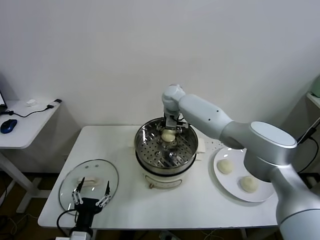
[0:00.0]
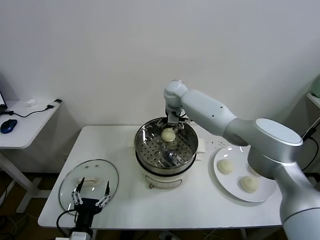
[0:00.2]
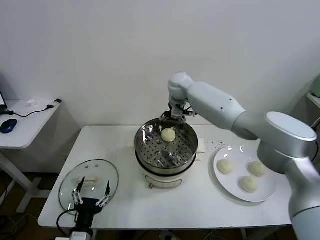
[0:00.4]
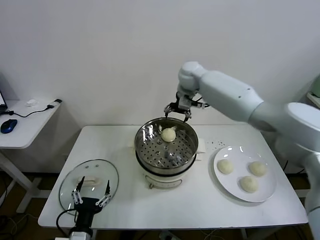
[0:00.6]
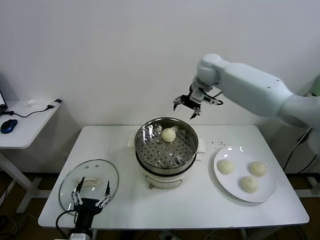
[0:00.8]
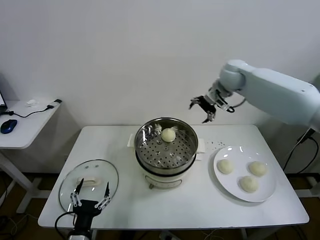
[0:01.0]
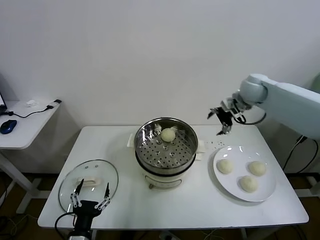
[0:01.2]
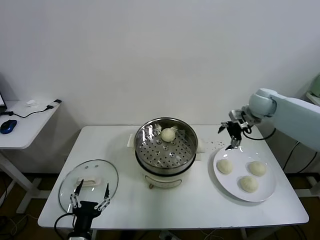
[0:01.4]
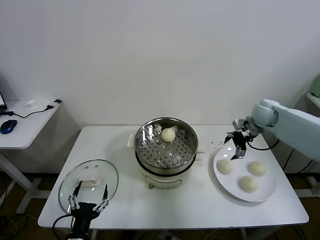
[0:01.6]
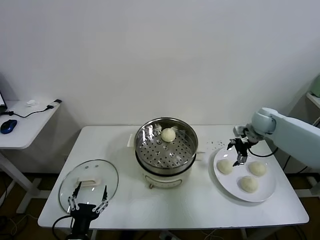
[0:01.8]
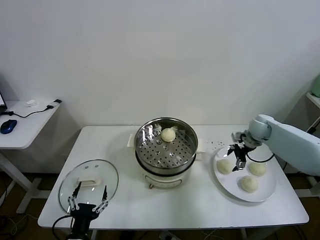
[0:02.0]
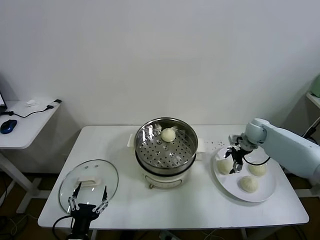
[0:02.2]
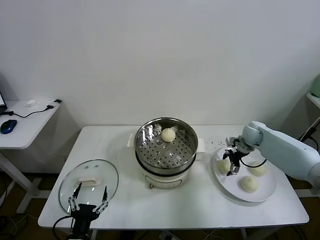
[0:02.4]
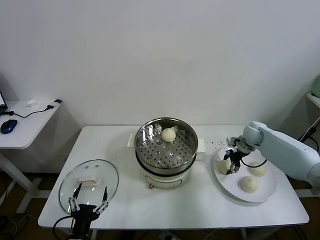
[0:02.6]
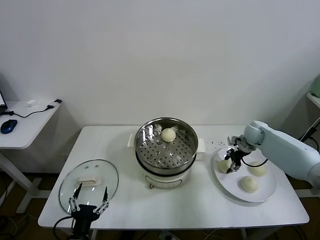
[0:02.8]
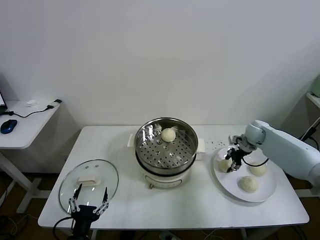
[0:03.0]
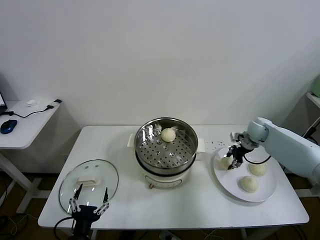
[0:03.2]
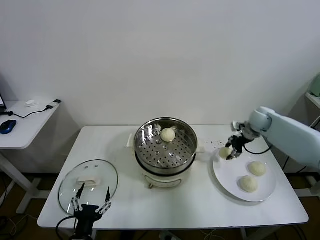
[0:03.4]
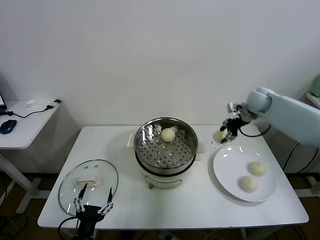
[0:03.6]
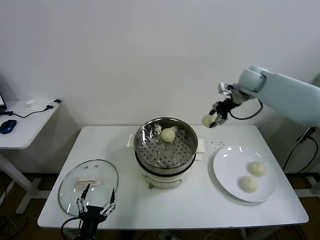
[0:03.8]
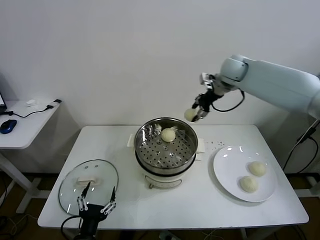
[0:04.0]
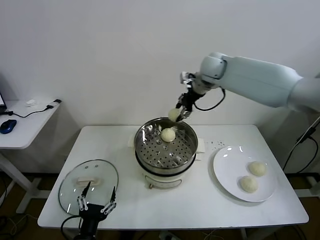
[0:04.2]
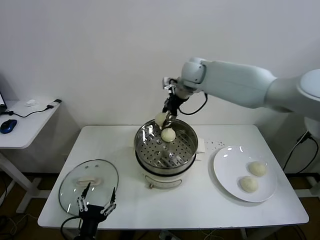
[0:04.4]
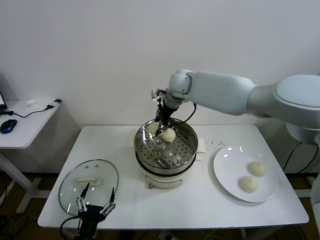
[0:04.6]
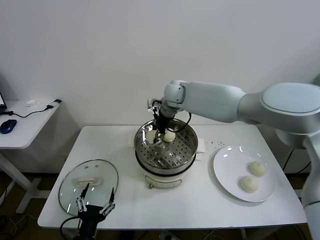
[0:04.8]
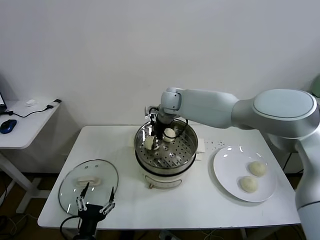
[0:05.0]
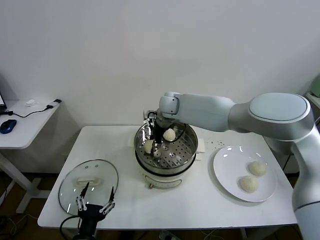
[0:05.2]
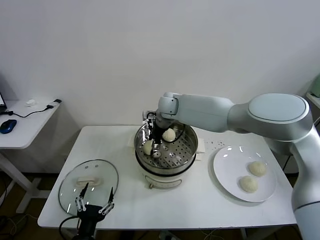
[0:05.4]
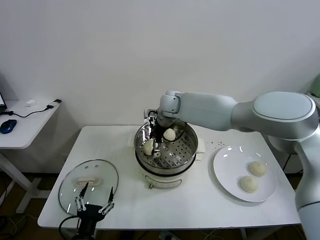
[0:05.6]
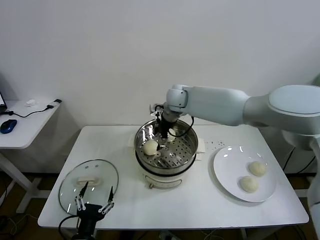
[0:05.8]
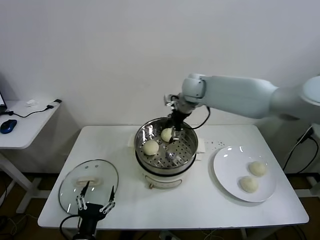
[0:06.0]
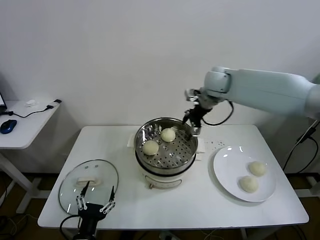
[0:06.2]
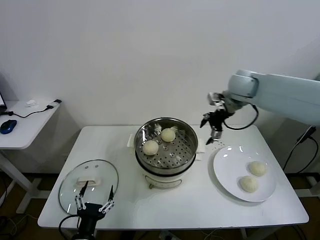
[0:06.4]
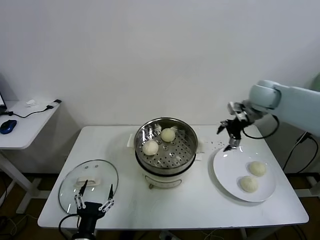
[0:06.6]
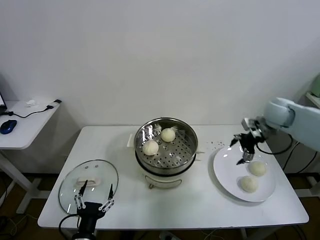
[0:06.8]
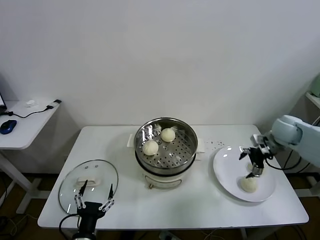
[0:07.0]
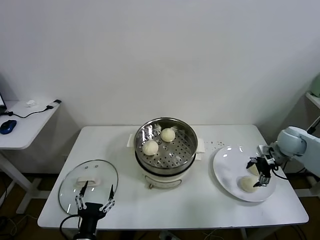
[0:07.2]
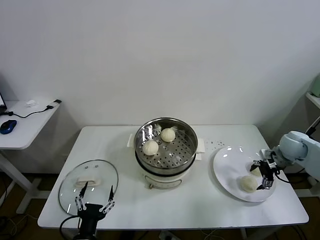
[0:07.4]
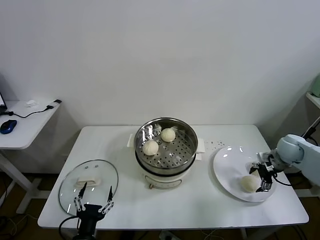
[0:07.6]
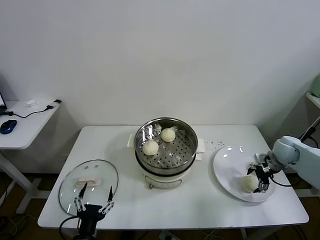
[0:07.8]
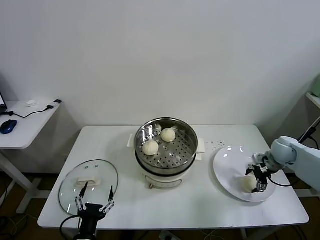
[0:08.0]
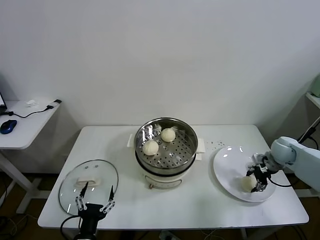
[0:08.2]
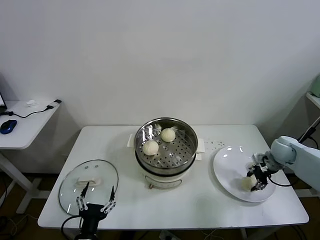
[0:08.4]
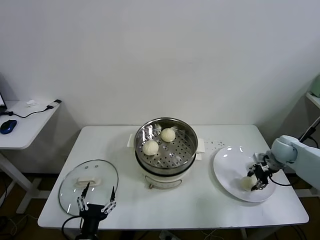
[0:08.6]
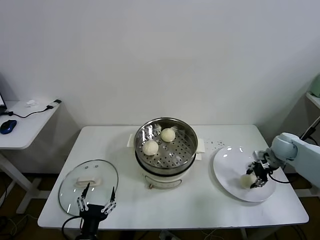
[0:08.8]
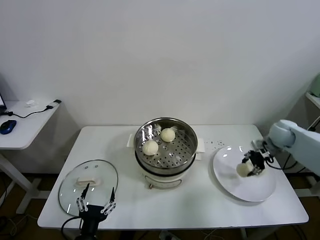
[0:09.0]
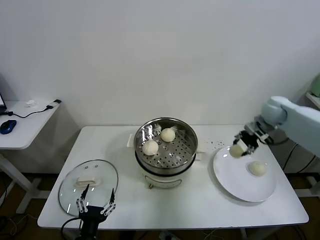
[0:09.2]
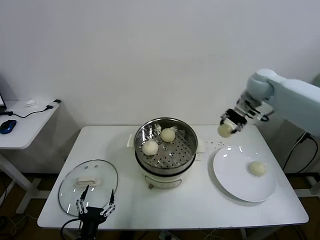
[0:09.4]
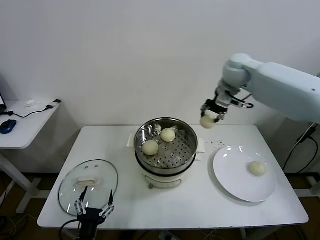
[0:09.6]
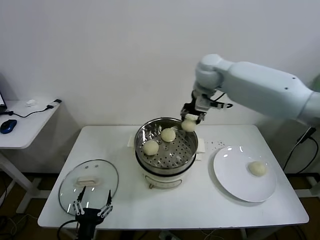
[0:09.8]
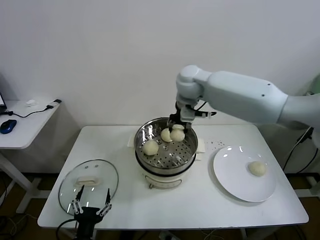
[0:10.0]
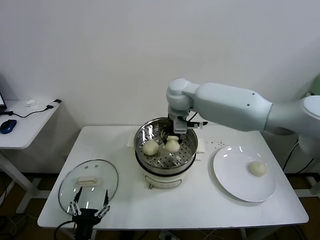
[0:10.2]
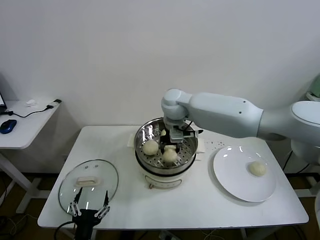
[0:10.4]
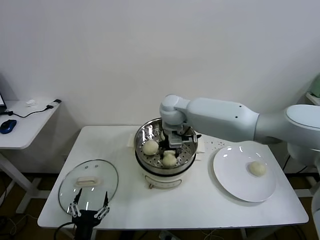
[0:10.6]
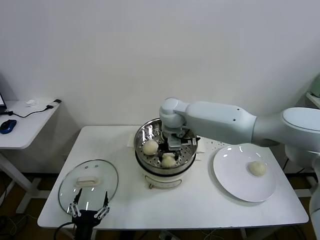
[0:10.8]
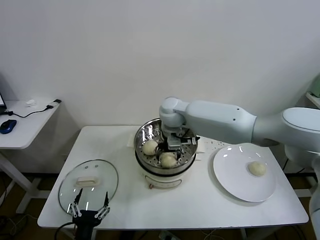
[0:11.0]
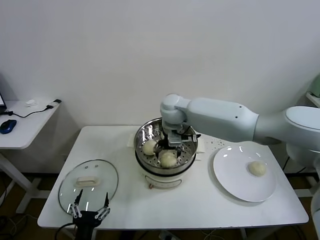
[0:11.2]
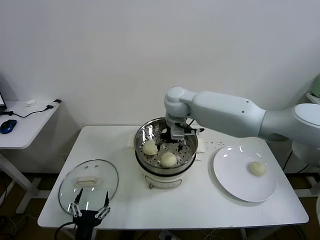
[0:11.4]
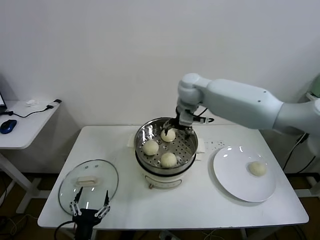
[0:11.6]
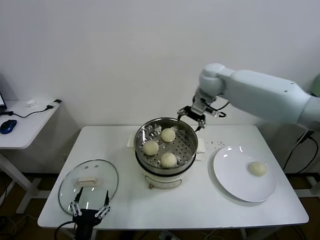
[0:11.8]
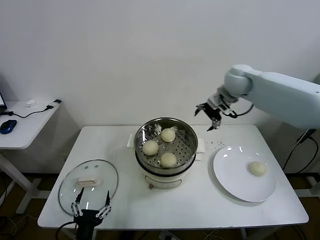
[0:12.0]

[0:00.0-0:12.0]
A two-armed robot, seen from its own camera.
Task of the whole recording: take steamed baozi put them in steamer.
Step, 0:00.4 to 0:02.6: Grasp the baozi in the plate with right gripper.
Step, 0:03.0 to 0:05.6: Place the baozi on the steamer with right gripper.
Step, 0:05.8 to 0:08.4: Grasp the baozi in the plate with right gripper.
Step, 0:08.6 to 0:11.0: Place the baozi on the steamer with right gripper.
0:00.0 to 0:01.6: The right gripper is displaced to the right by approximately 35 cm.
0:01.6 to 0:03.0: The right gripper is displaced downward by about 10 cm, and closes its fingers.
0:03.0 to 0:04.4: The right gripper moves to the left and upward, some 40 cm.
0:04.4 to 0:06.0: The right gripper opens.
0:06.0 to 0:07.6: The right gripper travels to the right and downward by approximately 40 cm.
0:07.6 to 0:09.0: The right gripper goes some 10 cm upward and forward, and closes its fingers.
0:09.0 to 0:10.4: The right gripper is displaced to the left by approximately 40 cm.
0:10.4 to 0:12.0: The right gripper is displaced to the right by approximately 25 cm, and opens up.

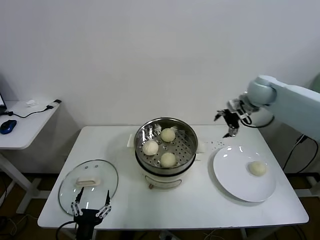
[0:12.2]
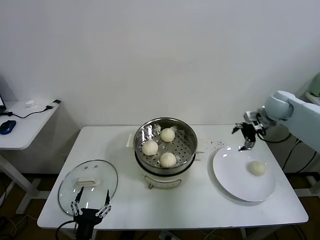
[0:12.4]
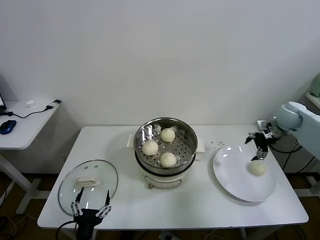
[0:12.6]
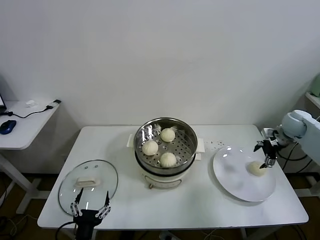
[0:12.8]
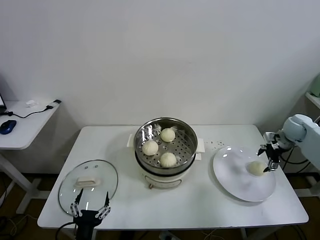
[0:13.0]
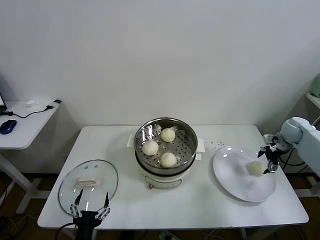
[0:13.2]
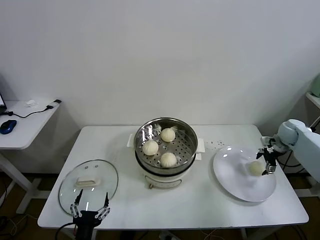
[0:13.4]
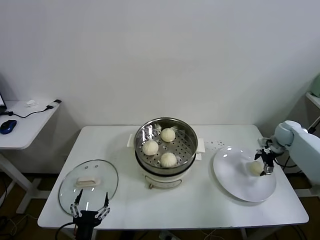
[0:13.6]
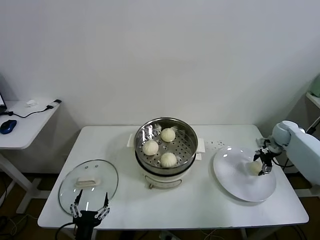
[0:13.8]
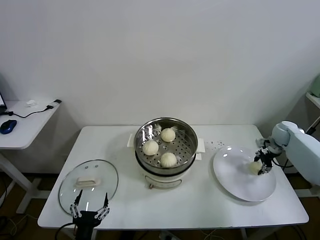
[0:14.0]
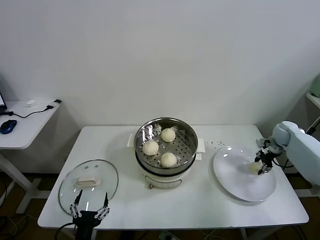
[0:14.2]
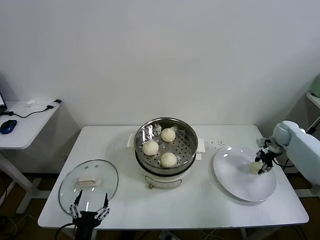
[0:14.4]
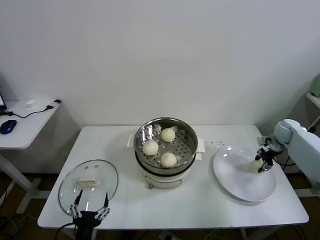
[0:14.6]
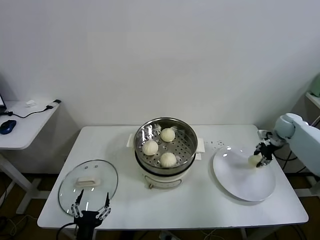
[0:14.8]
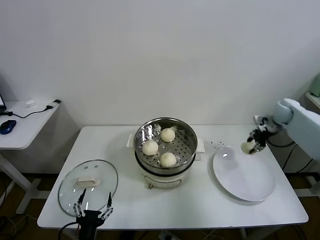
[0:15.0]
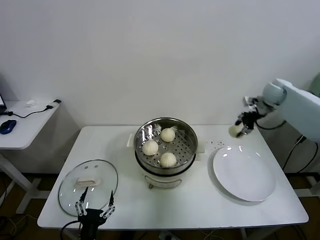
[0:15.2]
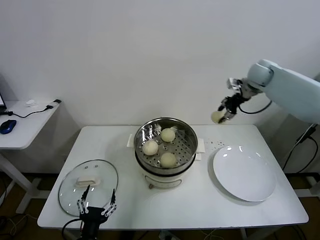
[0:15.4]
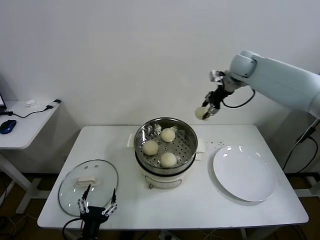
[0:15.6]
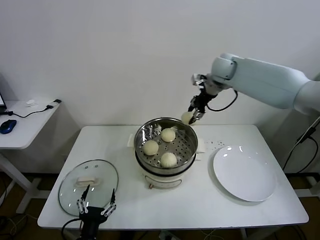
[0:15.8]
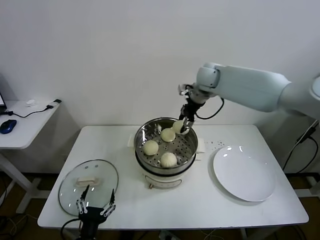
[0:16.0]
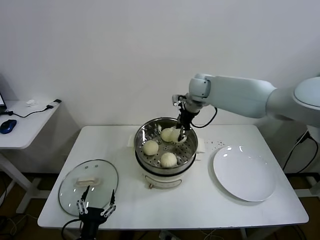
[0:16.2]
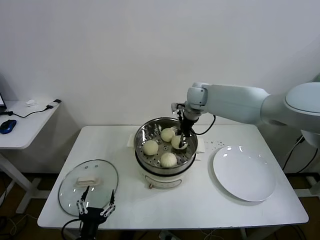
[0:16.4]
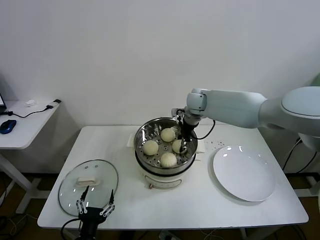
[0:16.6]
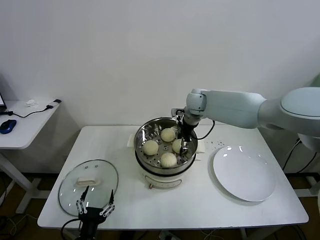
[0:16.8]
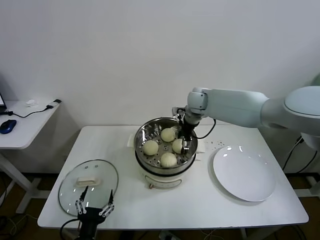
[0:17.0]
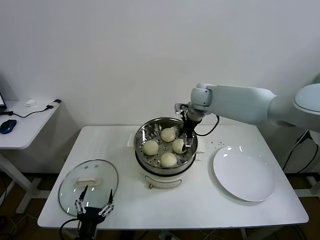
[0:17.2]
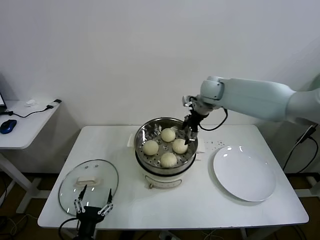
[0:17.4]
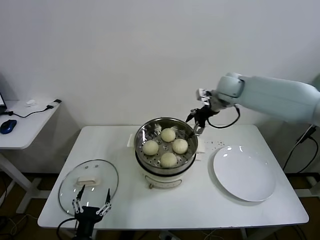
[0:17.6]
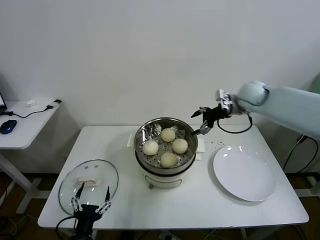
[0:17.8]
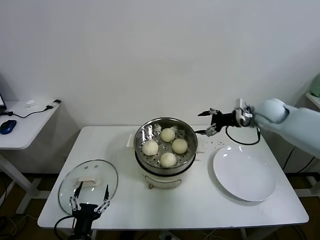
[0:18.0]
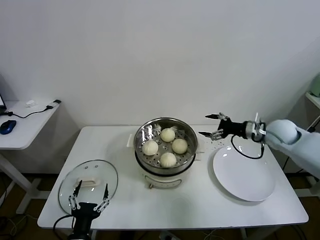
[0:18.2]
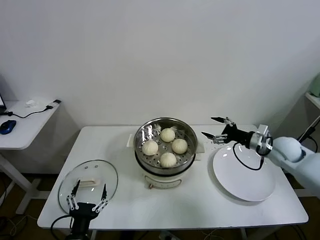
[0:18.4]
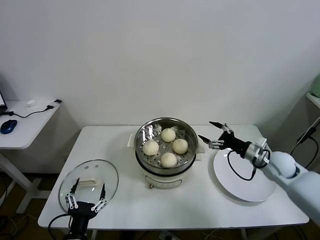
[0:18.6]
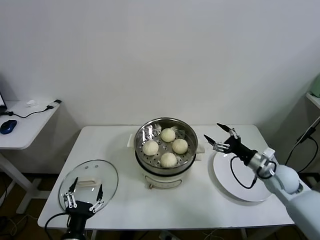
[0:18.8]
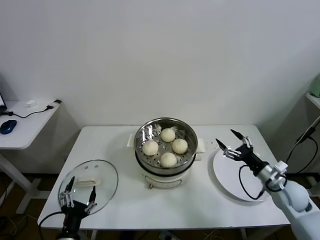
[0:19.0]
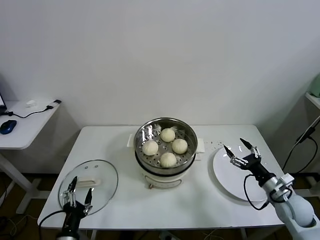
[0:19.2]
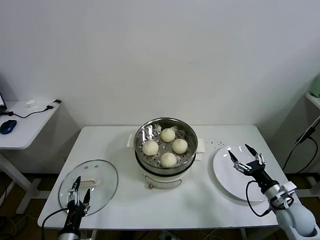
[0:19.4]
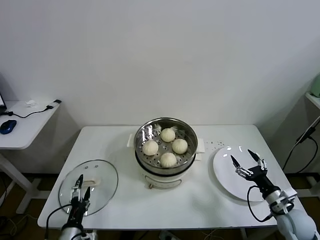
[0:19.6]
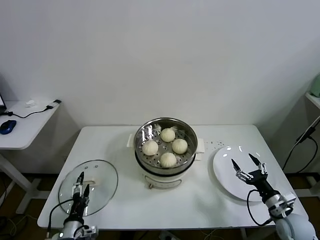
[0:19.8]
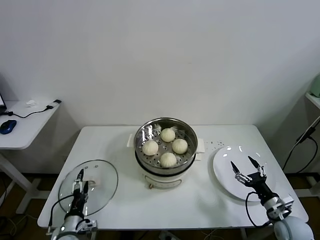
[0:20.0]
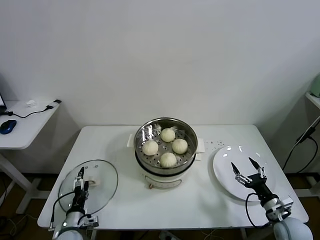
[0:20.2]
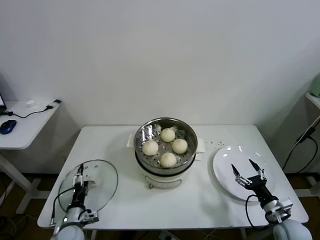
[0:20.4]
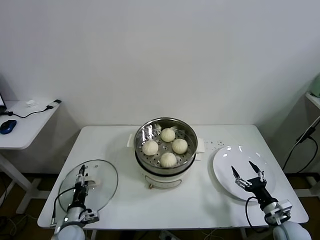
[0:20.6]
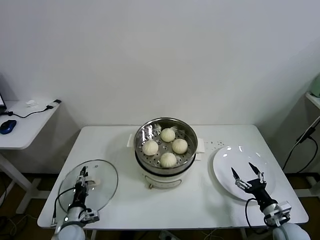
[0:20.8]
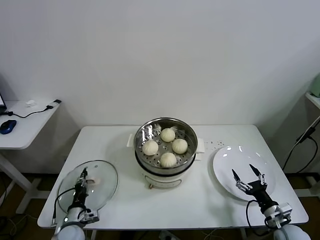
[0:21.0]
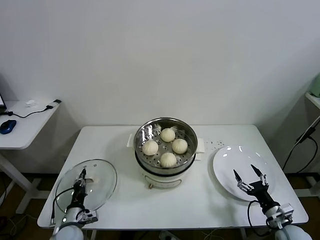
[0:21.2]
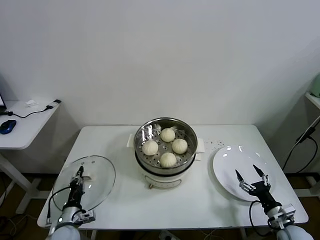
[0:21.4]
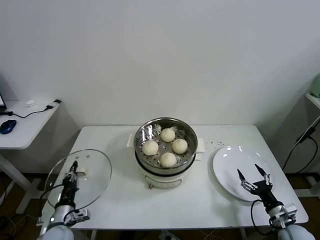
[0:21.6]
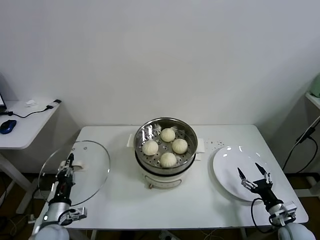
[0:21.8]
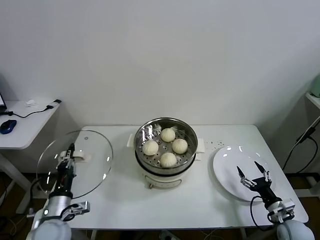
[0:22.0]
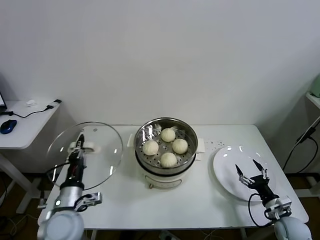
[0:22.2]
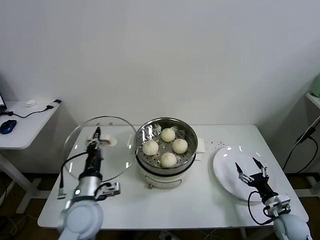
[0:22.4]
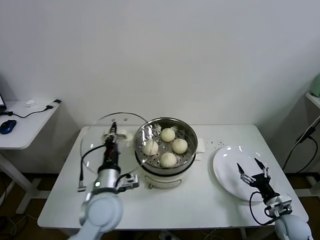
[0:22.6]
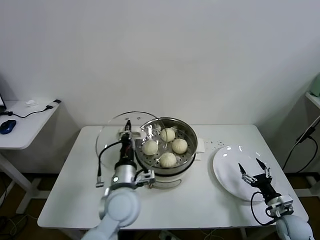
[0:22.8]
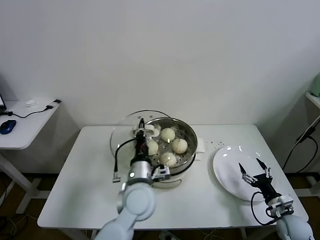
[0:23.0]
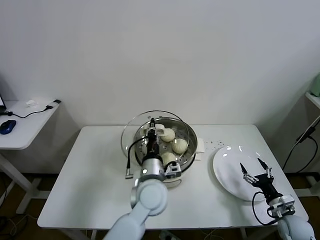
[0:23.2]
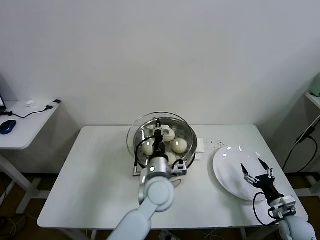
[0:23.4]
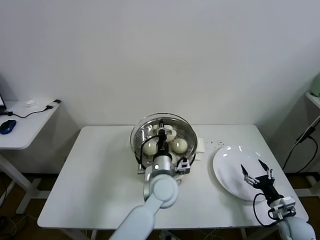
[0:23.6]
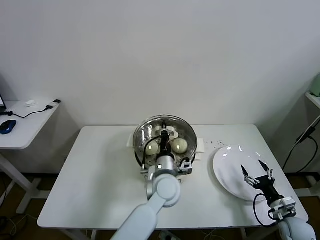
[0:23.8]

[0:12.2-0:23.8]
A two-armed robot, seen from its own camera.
Task of the whole recording: take steamed baozi put them in steamer.
Step, 0:12.2 to 0:13.8: Grasp the baozi in the plate with right gripper.
Step, 0:14.2 to 0:17.2: Place the baozi on the steamer with right gripper.
Step, 0:17.4 to 0:21.2: Grasp the pot lid with left gripper.
0:12.2 to 0:13.6: The right gripper heads downward and to the right, covering approximately 25 cm.
0:13.6 to 0:15.0: The right gripper goes roughly 10 cm upward, and closes up.
0:15.0 to 0:16.6: The right gripper shifts some 35 cm to the left.
0:16.6 to 0:18.0: The right gripper moves to the right, about 20 cm, and opens its fingers.
0:18.0 to 0:19.4: The right gripper heads backward and downward, covering about 35 cm; the left gripper shifts by approximately 5 cm.
0:19.4 to 0:21.0: The left gripper heads forward and downward, covering roughly 15 cm, and closes. Meanwhile the right gripper moves downward, approximately 5 cm.
0:21.0 to 0:22.4: The left gripper heads upward and to the right, covering about 25 cm.
0:22.4 to 0:23.8: The left gripper shifts some 25 cm to the right.
